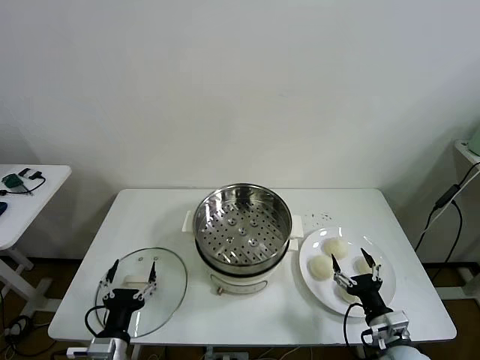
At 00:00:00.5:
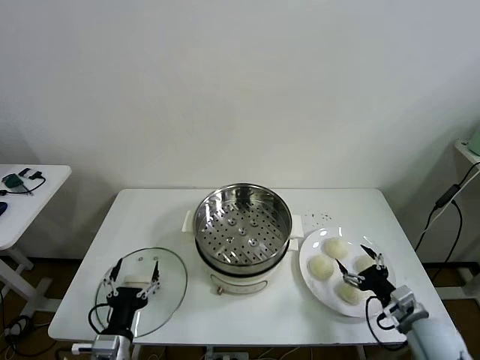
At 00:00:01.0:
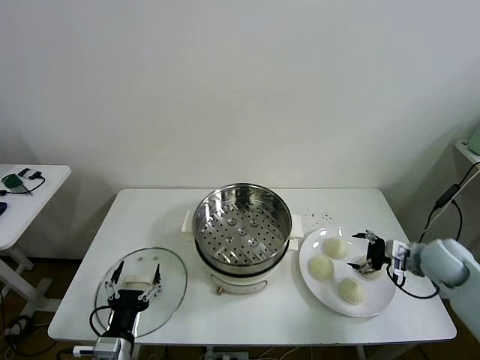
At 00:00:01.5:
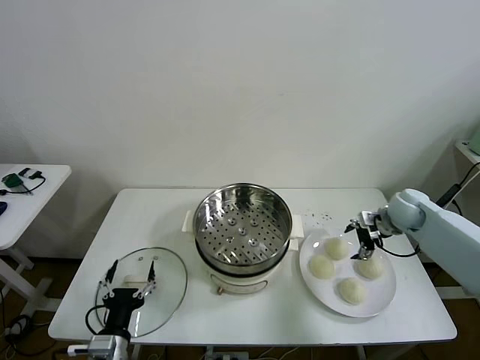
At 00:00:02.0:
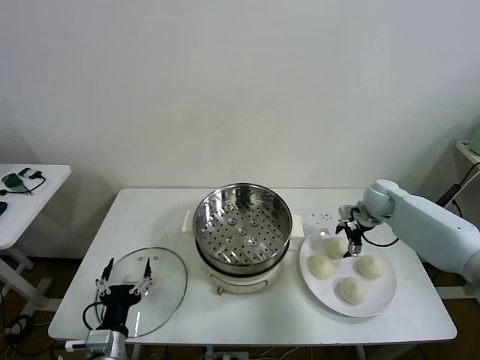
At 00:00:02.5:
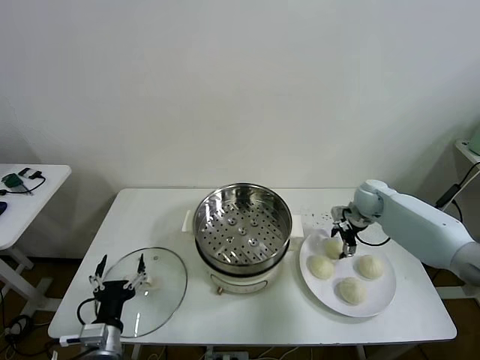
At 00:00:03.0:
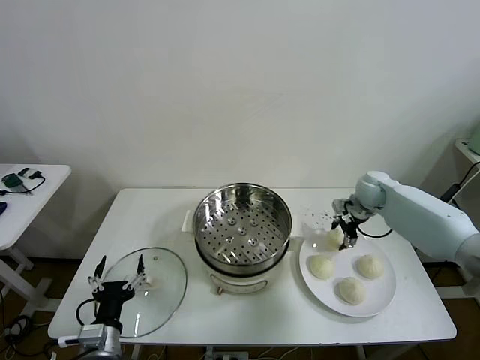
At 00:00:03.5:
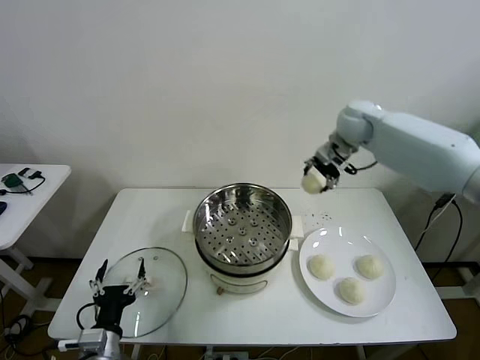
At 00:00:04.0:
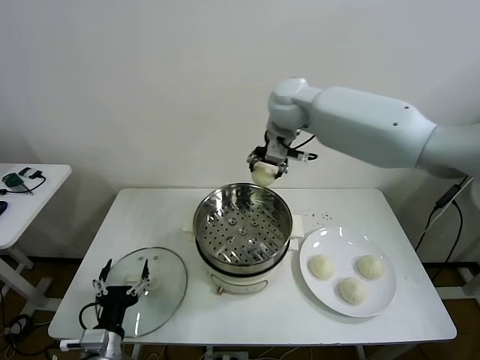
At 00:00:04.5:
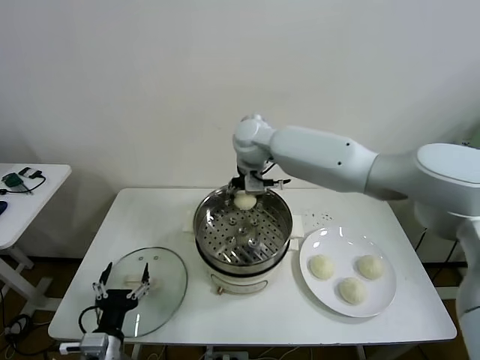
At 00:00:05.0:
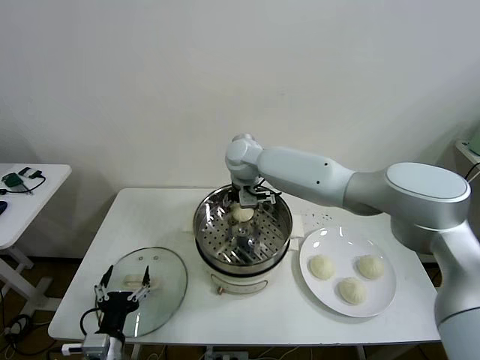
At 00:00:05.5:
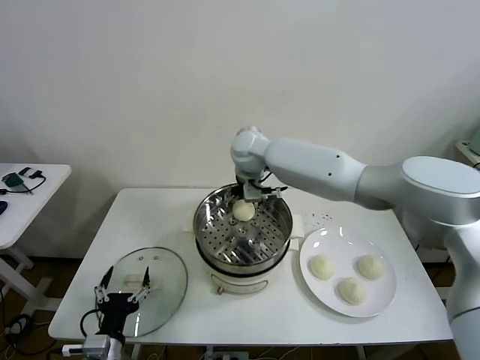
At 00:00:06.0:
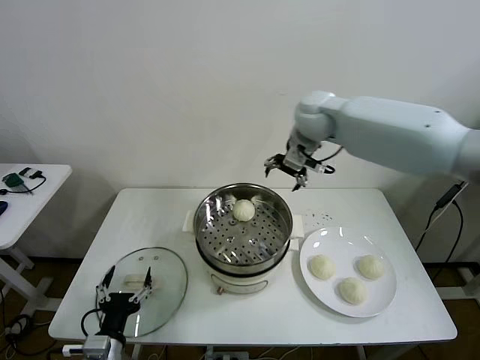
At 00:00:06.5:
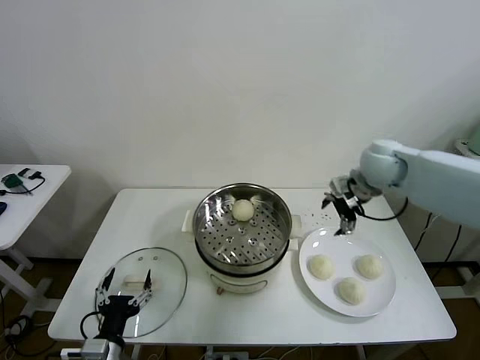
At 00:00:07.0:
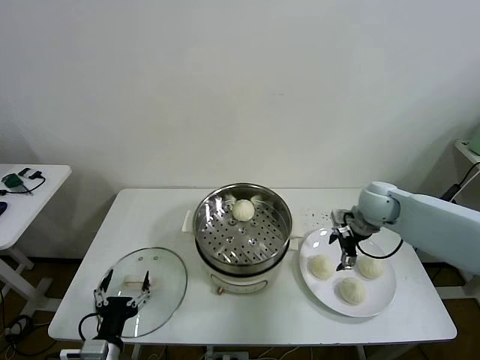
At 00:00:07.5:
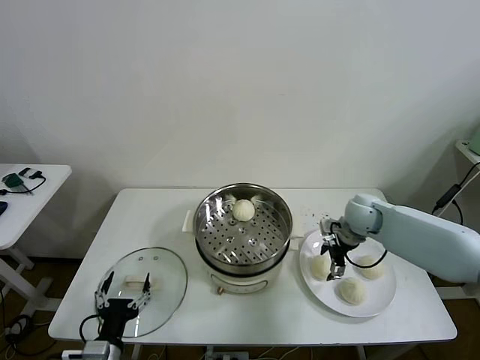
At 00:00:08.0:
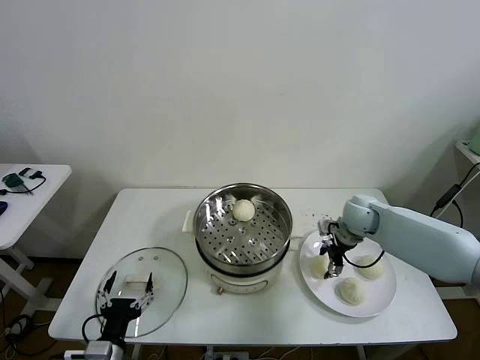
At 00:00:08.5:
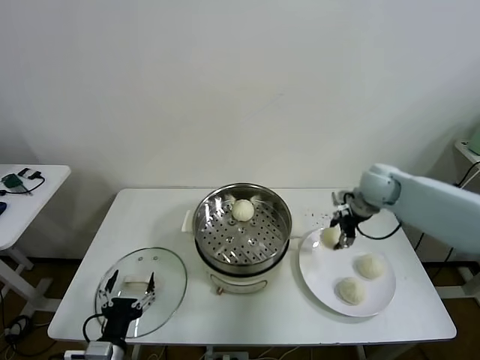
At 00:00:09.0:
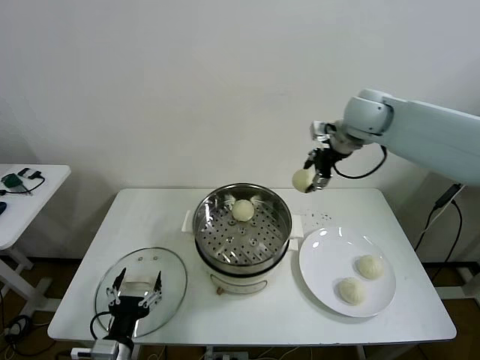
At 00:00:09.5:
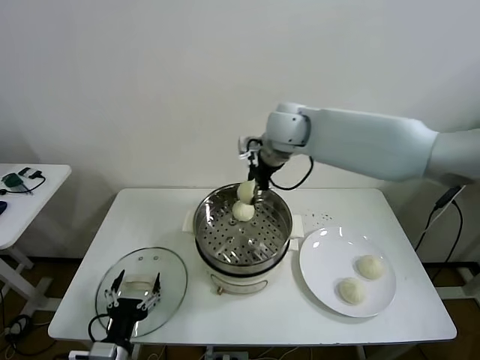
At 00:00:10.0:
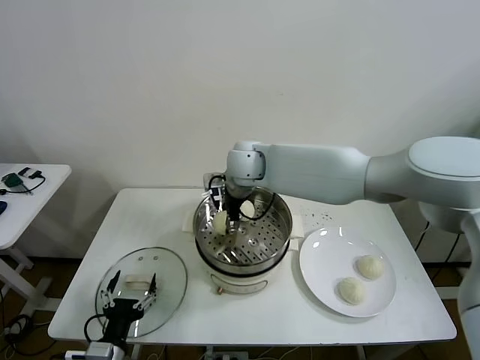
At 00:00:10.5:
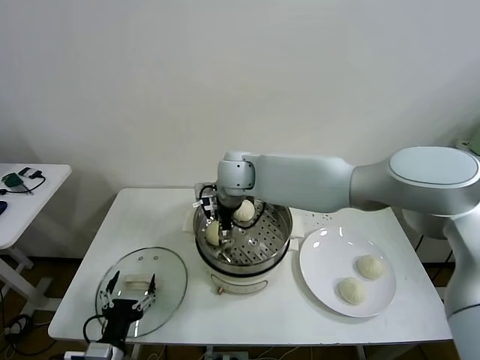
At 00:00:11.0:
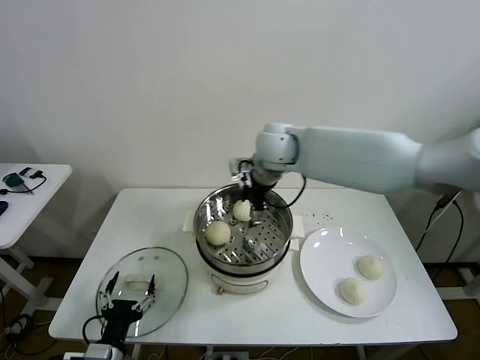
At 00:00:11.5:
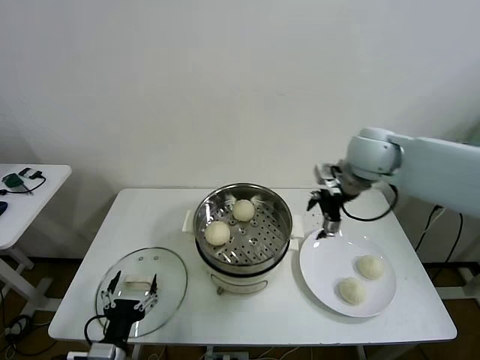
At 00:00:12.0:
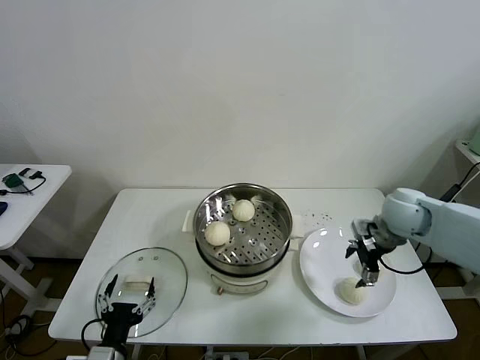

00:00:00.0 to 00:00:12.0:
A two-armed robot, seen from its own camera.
Task of the whole recording: take steamed baozi put them in steamer then cover it.
Step, 00:00:00.0 to 00:00:02.5: Grasp the baozi in the plate with right gripper.
Step, 00:00:03.0 to 00:00:05.0: Place the baozi on the steamer with right gripper.
Step, 00:00:05.5 to 00:00:08.0: Grasp the baozi in the plate with right gripper.
Step, 00:00:08.5 to 00:00:10.5: Place the baozi on the steamer with right gripper.
00:00:02.0 to 00:00:04.0: The right gripper goes roughly 40 cm to the left and upward, and closes up.
00:00:04.0 to 00:00:06.0: The right gripper is displaced to the right by some 15 cm, and opens.
00:00:06.0 to 00:00:08.0: The right gripper shifts roughly 25 cm downward, and closes.
00:00:08.0 to 00:00:10.0: The right gripper is displaced to the left and upward by about 35 cm.
00:00:10.0 to 00:00:12.0: The right gripper moves to the right, about 35 cm, and opens up.

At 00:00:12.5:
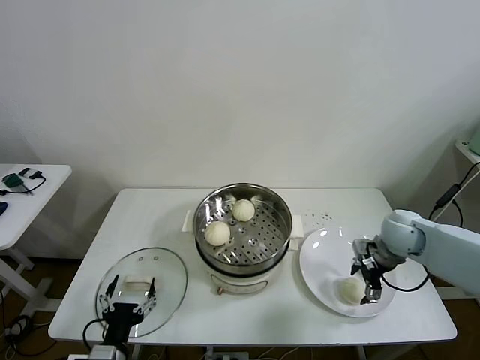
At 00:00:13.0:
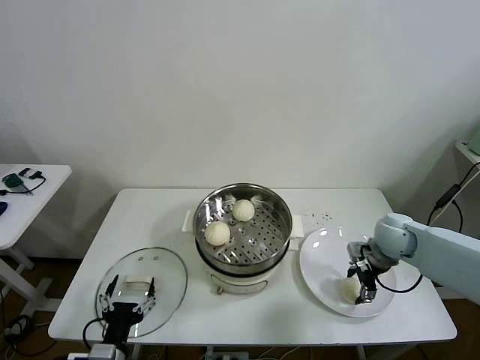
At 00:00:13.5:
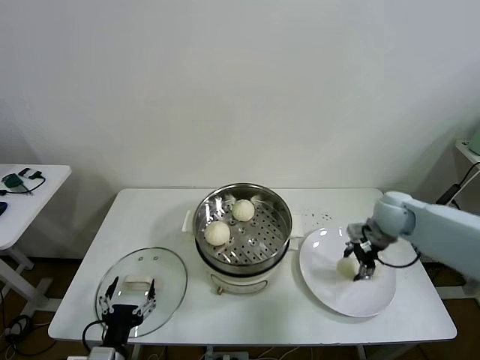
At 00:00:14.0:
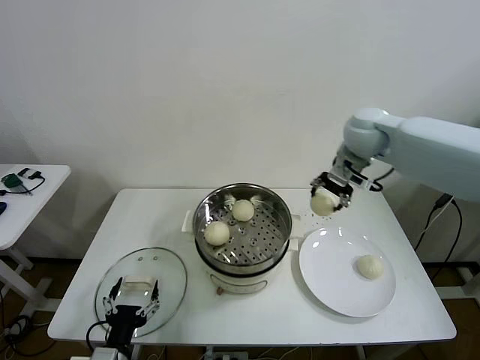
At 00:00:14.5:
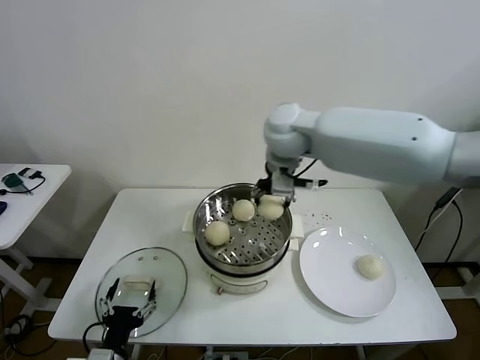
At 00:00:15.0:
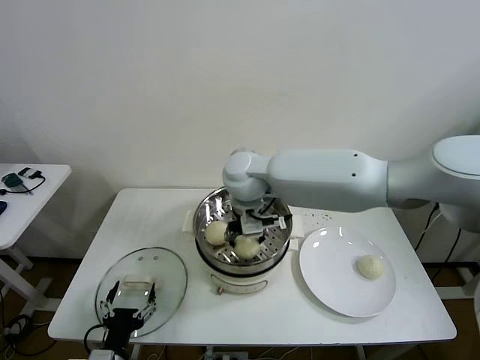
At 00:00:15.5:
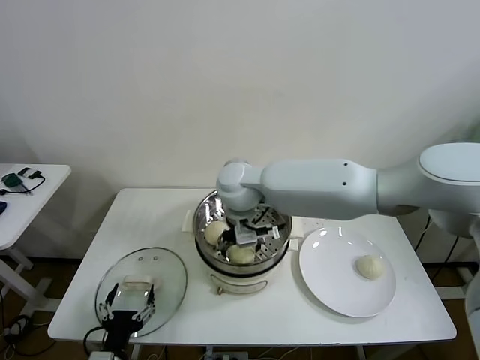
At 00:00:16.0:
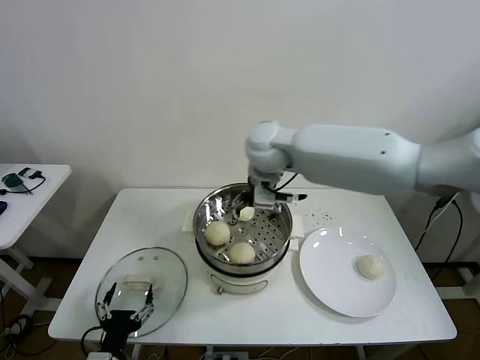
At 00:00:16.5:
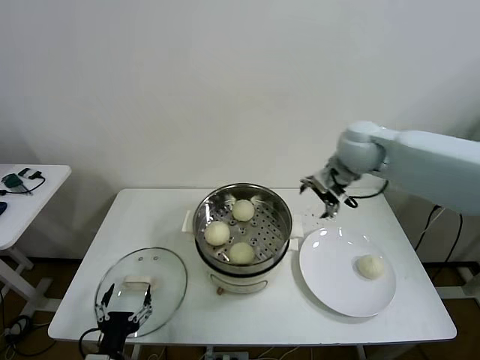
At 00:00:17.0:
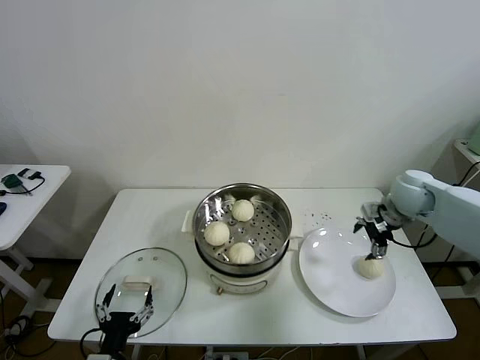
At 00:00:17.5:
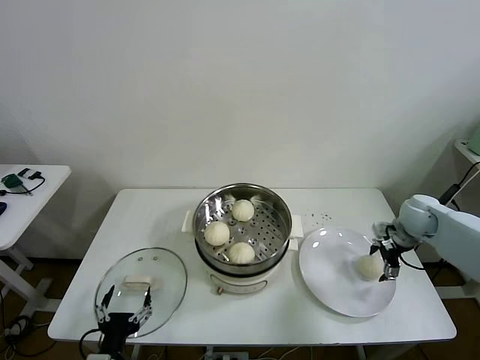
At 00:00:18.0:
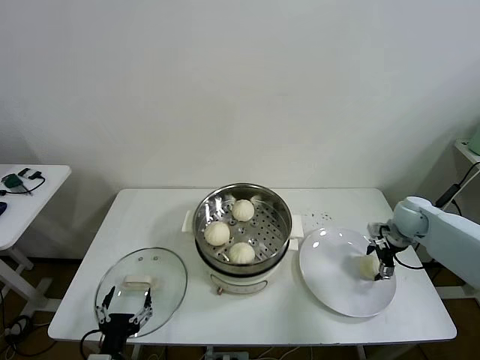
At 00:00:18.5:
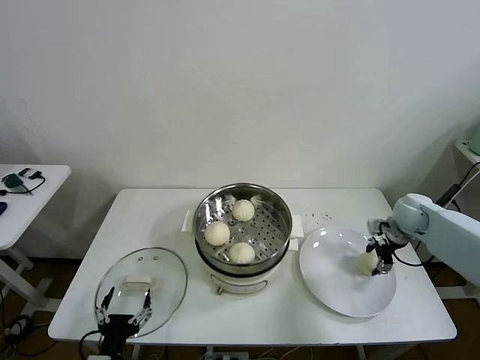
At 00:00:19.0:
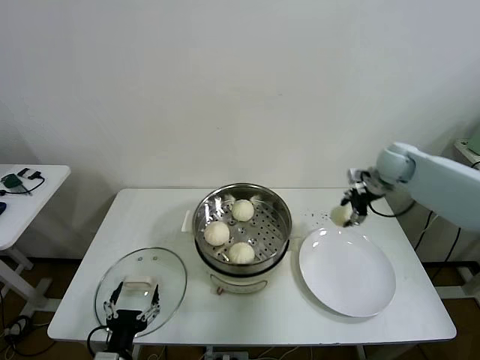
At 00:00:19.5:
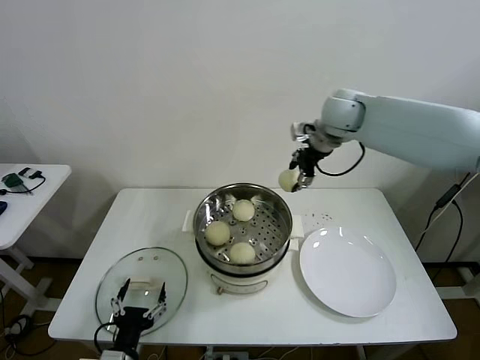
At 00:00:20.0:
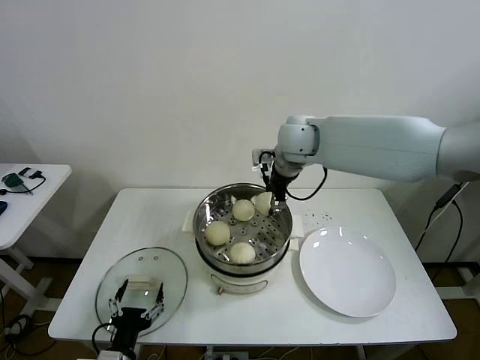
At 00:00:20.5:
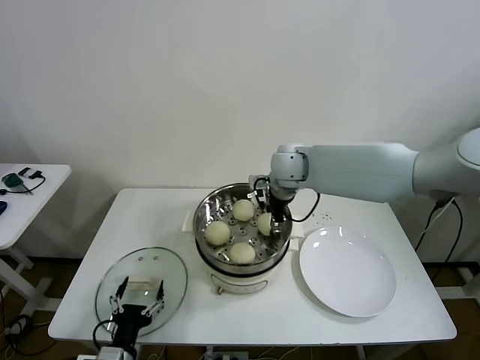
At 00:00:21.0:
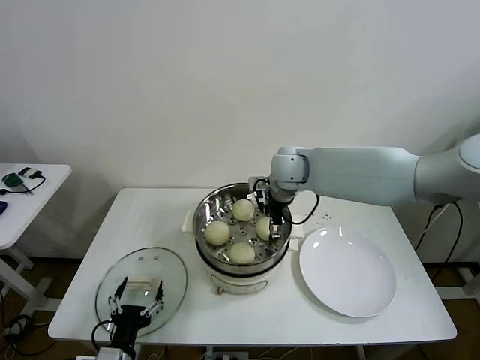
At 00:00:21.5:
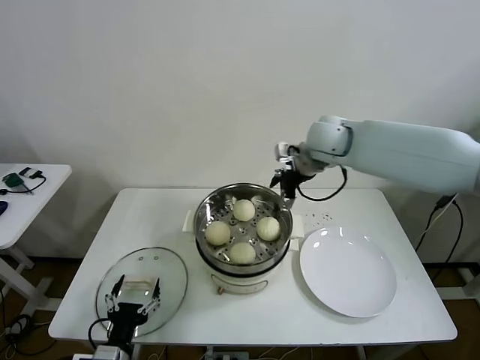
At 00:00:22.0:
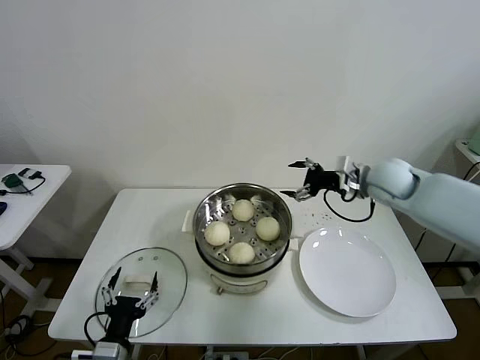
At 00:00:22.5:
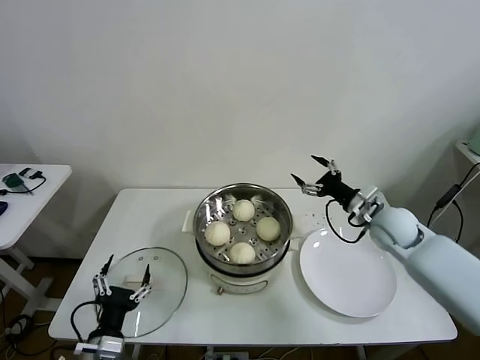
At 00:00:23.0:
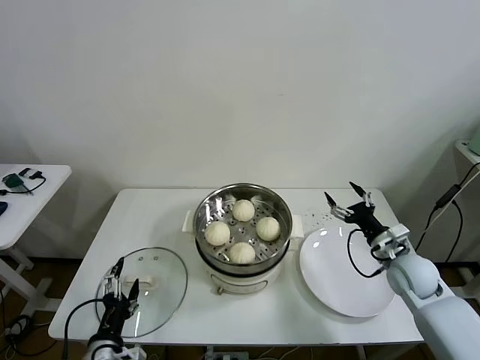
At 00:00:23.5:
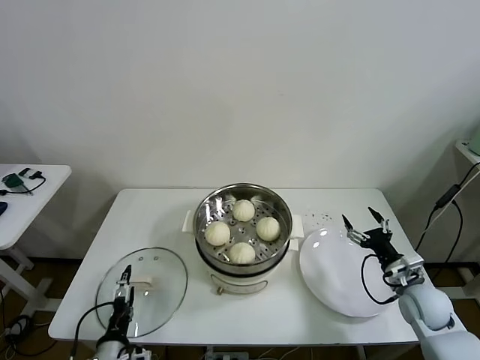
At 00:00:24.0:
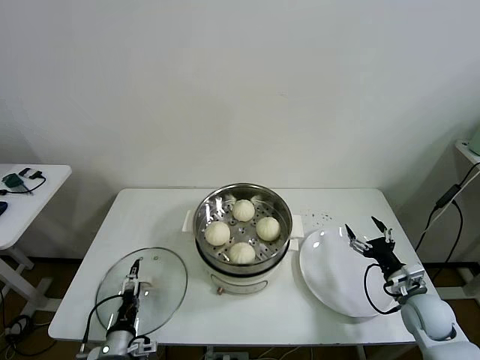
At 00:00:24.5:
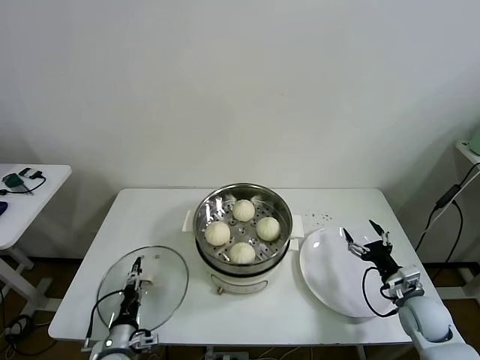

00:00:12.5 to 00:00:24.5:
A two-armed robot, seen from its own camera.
Task of the whole recording: take steamed baozi put them in steamer then cover it.
Step, 00:00:13.5 to 00:00:15.5: Place the baozi on the steamer with right gripper.
Step, 00:00:16.0 to 00:00:18.0: Grasp the baozi in the plate with right gripper.
Step, 00:00:18.5 to 00:00:20.5: Place the baozi on the steamer with right gripper.
00:00:12.5 to 00:00:14.5: The right gripper heads to the left and upward, covering roughly 40 cm, and closes.
00:00:14.5 to 00:00:16.5: The right gripper shifts some 20 cm to the right, and opens up.
00:00:16.5 to 00:00:18.5: The right gripper moves downward and to the right, about 25 cm, and closes.
00:00:18.5 to 00:00:20.5: The right gripper shifts about 30 cm to the left.
00:00:20.5 to 00:00:22.5: The right gripper is displaced to the right, downward and backward by about 30 cm, and opens up.
00:00:22.5 to 00:00:24.5: The right gripper shifts roughly 20 cm downward, backward and to the right; the left gripper moves downward and forward, some 15 cm, and closes up.

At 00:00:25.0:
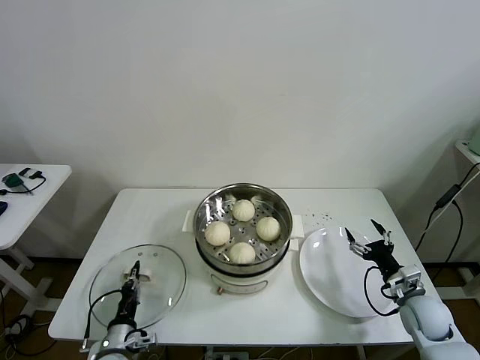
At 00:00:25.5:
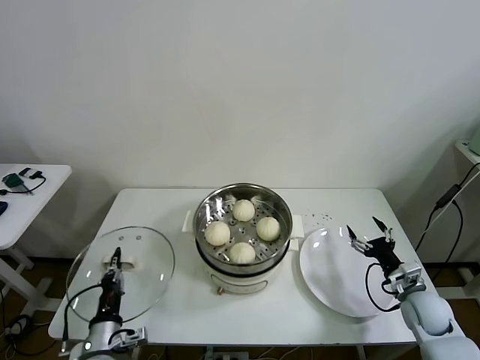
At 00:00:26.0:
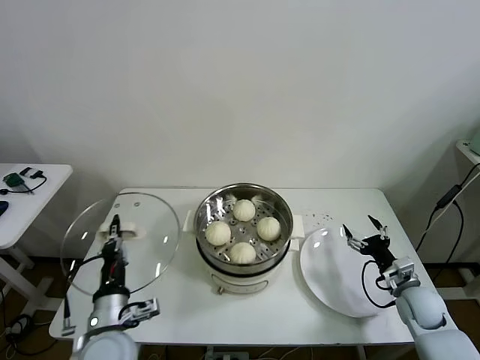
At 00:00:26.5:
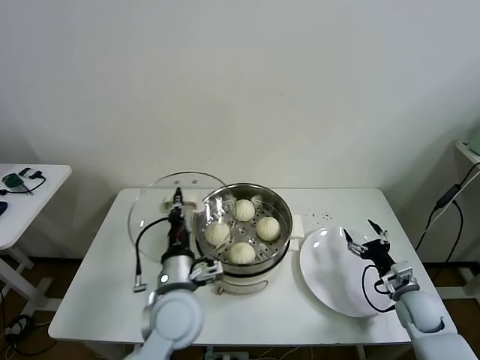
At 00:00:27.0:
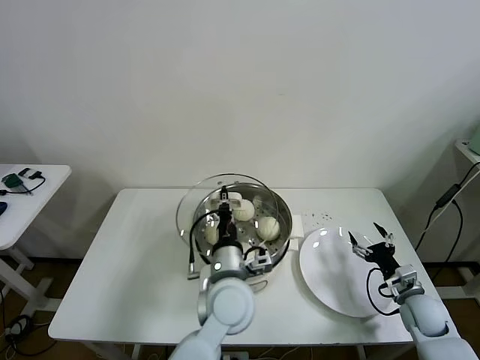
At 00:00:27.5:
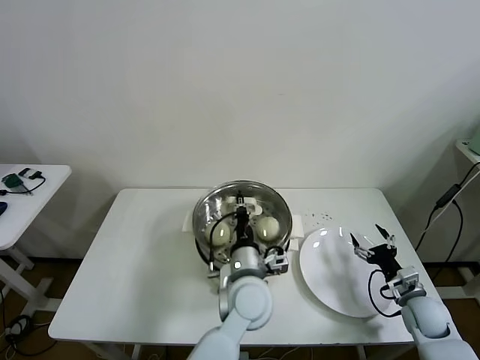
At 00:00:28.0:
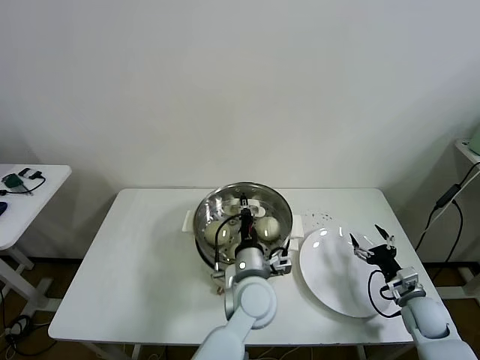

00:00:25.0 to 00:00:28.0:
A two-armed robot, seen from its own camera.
Task of the whole recording: take steamed baozi put them in steamer then cover it.
00:00:25.0 to 00:00:26.5: The left gripper travels upward and to the right by about 25 cm.
00:00:26.5 to 00:00:28.0: The left gripper heads to the right, covering roughly 15 cm.
